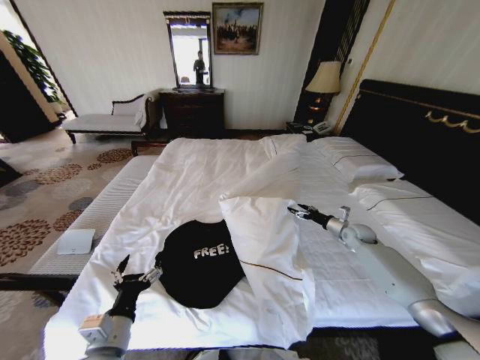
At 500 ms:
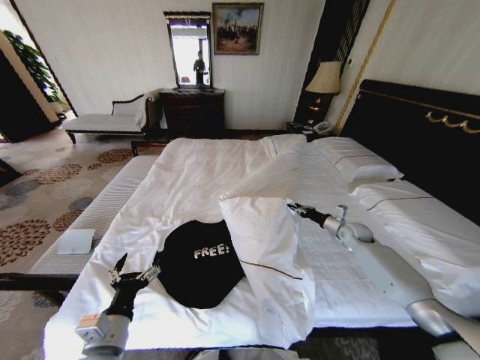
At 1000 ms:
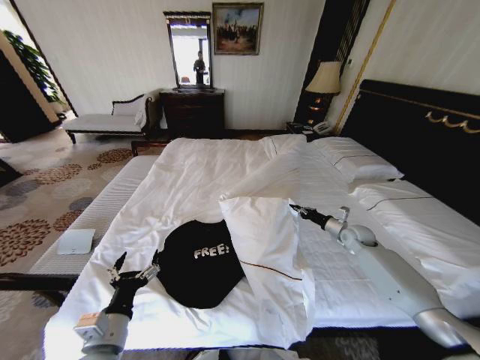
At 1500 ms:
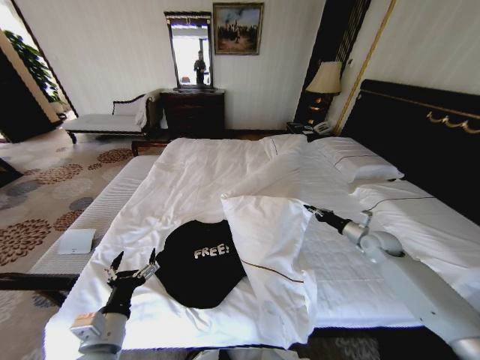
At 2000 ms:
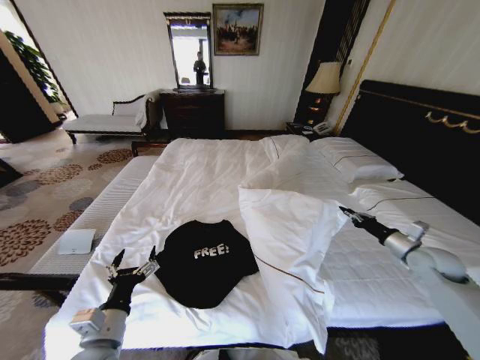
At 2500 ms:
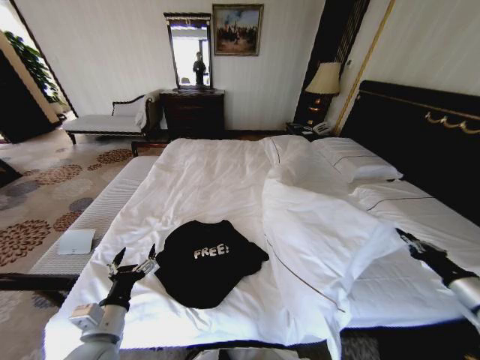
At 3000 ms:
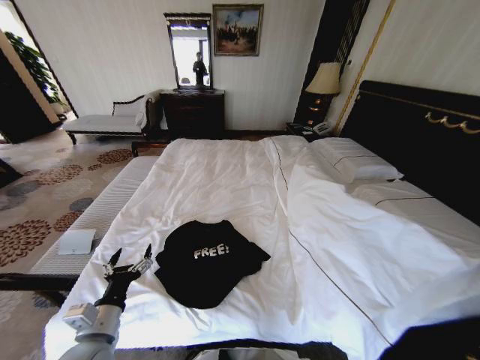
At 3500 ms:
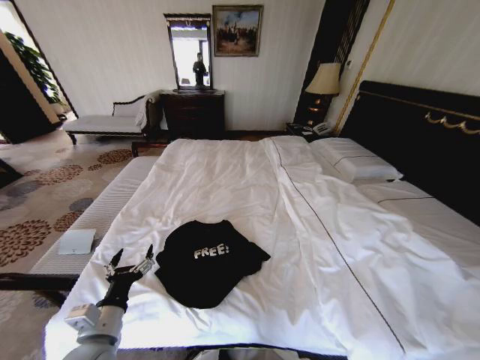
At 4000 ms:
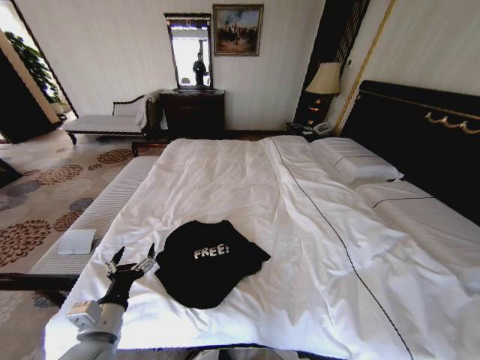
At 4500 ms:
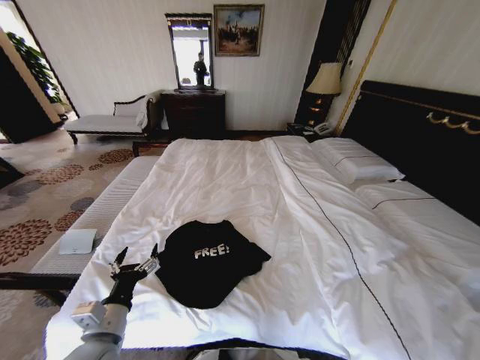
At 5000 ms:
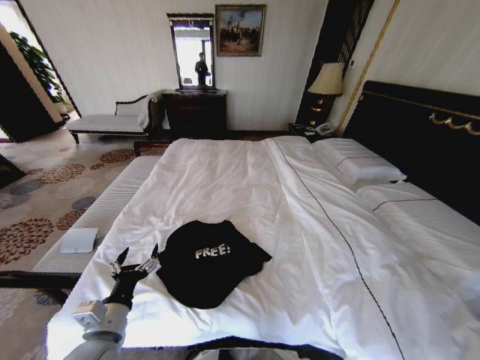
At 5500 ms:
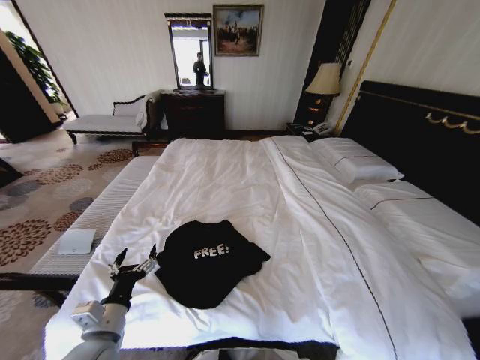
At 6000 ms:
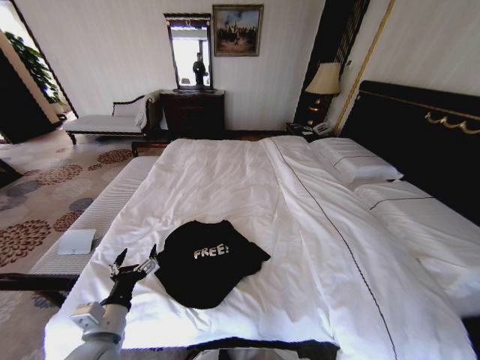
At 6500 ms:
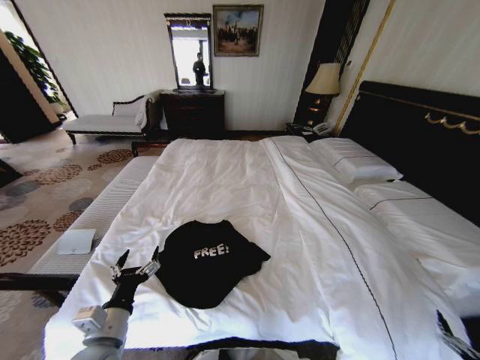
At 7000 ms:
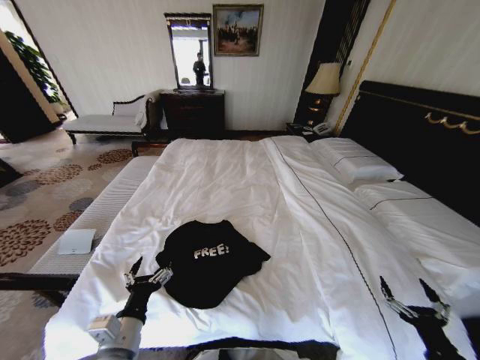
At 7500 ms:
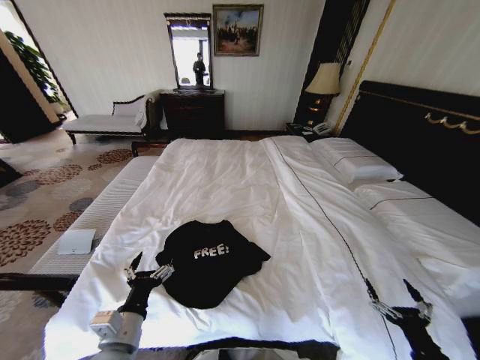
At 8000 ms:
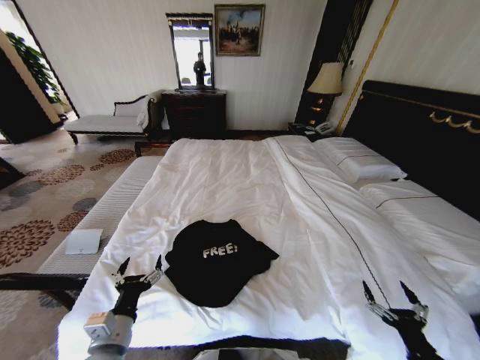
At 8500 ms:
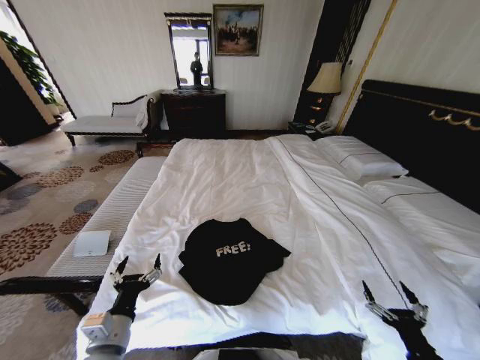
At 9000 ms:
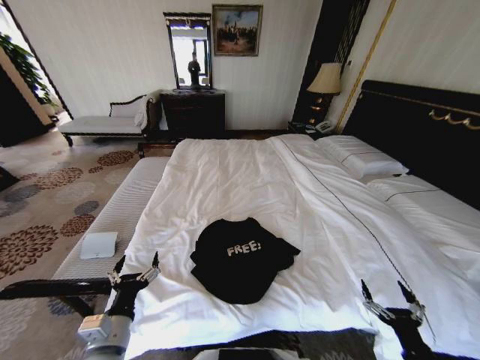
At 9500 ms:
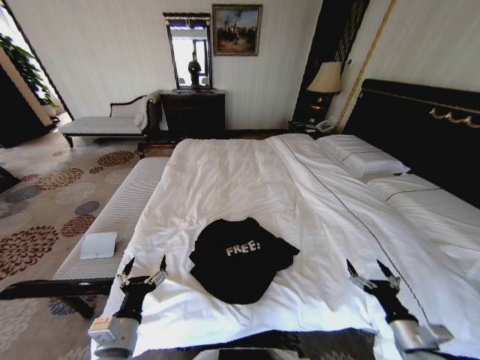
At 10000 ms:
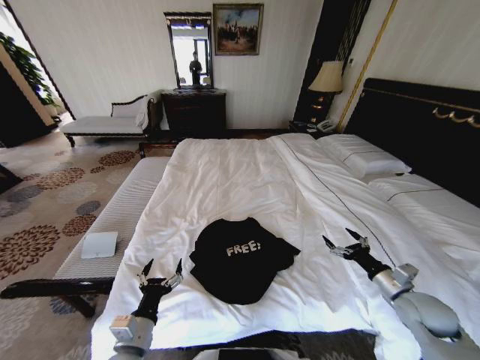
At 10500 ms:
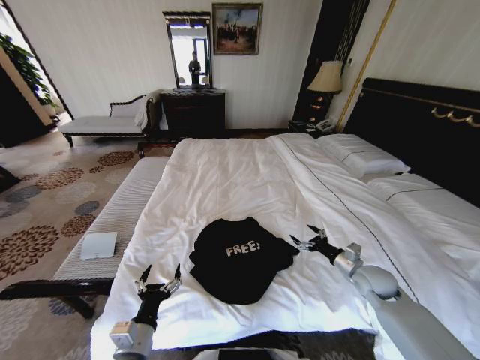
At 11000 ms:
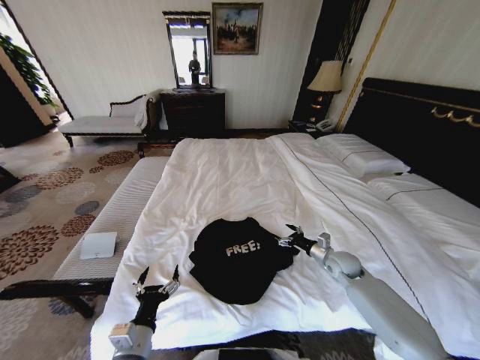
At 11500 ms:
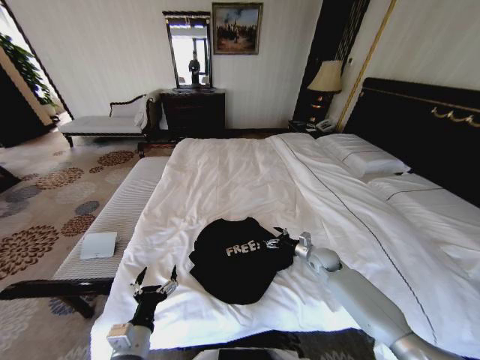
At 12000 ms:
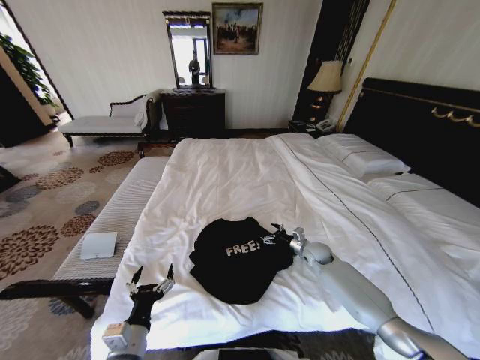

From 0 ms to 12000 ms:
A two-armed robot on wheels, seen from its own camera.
Task of the whole recording: Fold the clothes on the bed.
From 0 ms to 2000 ms: The right gripper is displaced backward, to the right and upward by roughly 20 cm, and closes up.
From 2000 ms to 4000 ms: The right gripper travels backward by approximately 40 cm.
From 4000 ms to 6000 ms: The right gripper is displaced to the left by roughly 5 cm, and opens up.
From 6000 ms to 8000 ms: The right gripper moves to the left and forward, about 25 cm.
From 8000 ms to 10000 ms: The right gripper shifts approximately 20 cm forward and upward.
From 10000 ms to 12000 ms: The right gripper is displaced forward, to the left and downward by approximately 25 cm.

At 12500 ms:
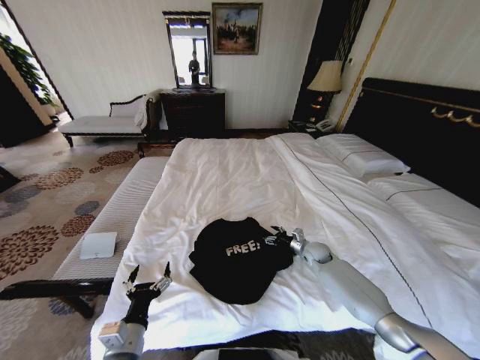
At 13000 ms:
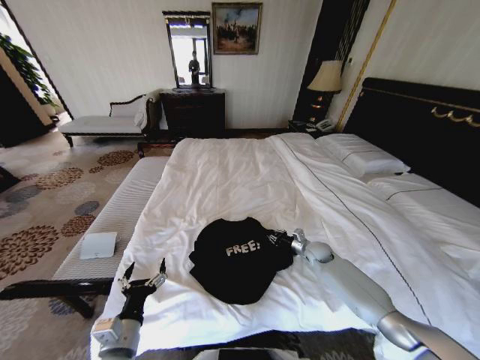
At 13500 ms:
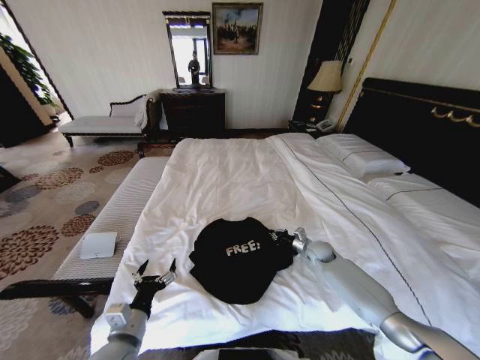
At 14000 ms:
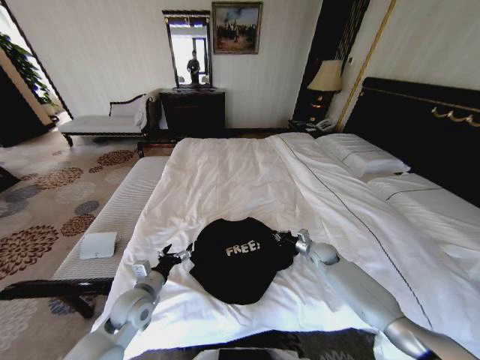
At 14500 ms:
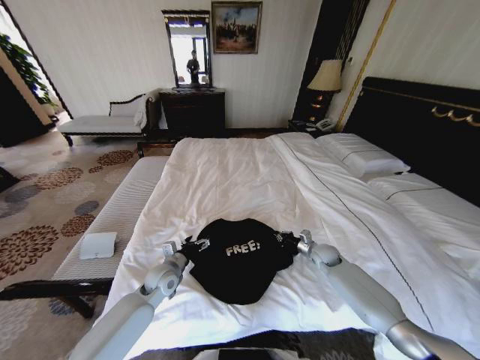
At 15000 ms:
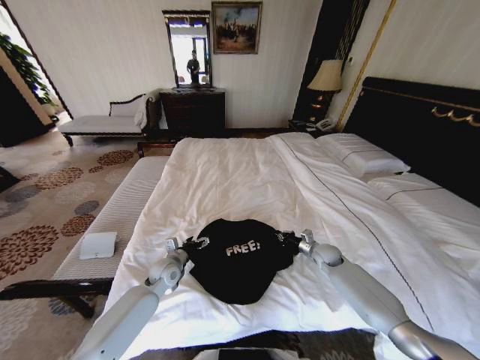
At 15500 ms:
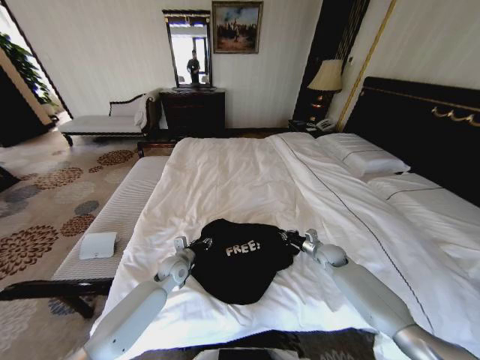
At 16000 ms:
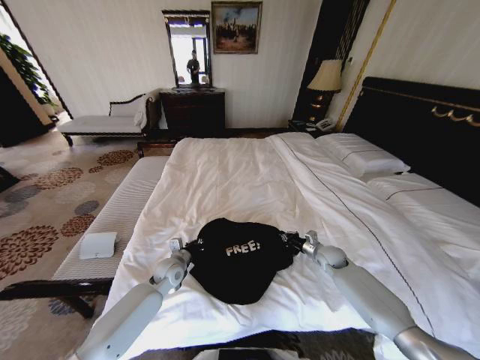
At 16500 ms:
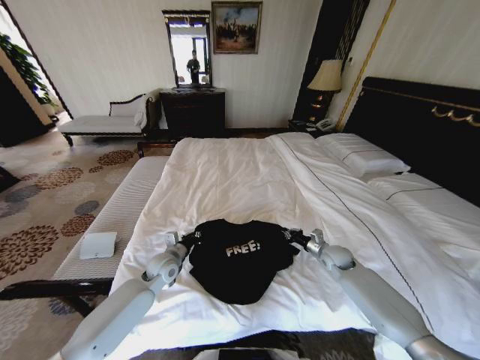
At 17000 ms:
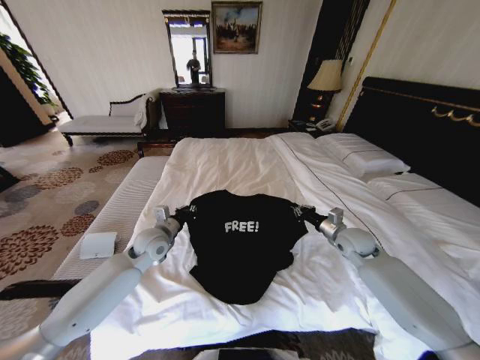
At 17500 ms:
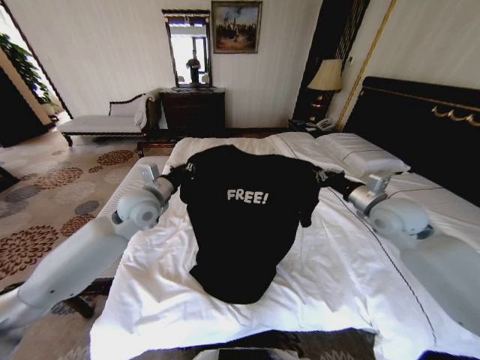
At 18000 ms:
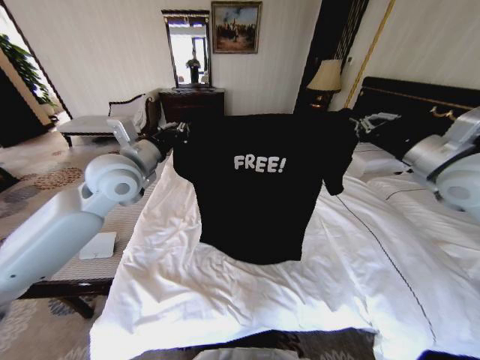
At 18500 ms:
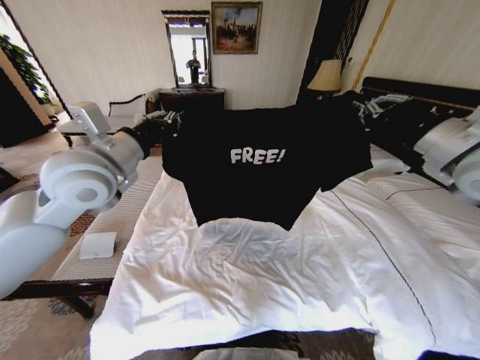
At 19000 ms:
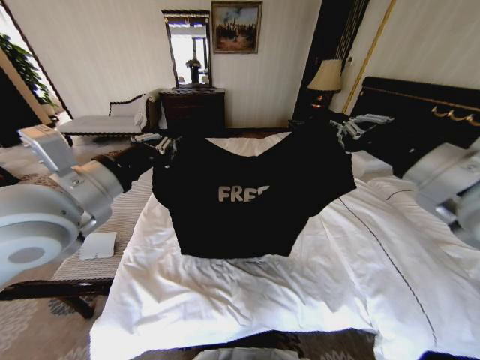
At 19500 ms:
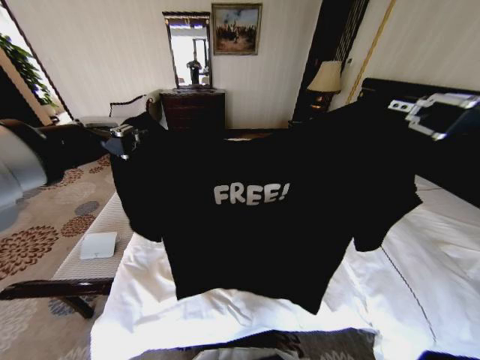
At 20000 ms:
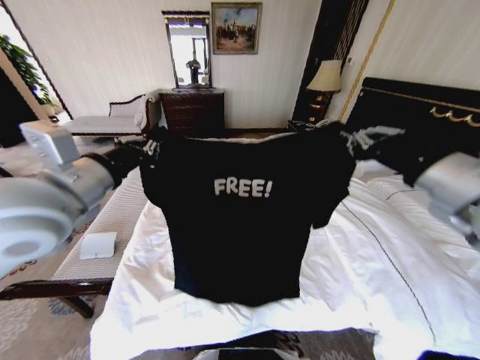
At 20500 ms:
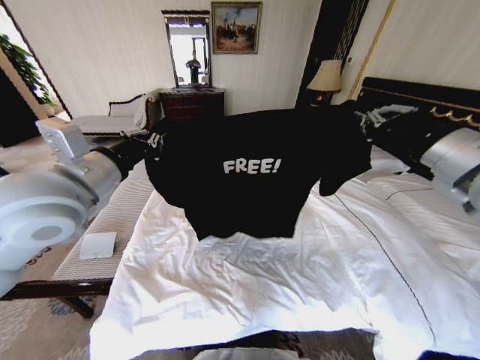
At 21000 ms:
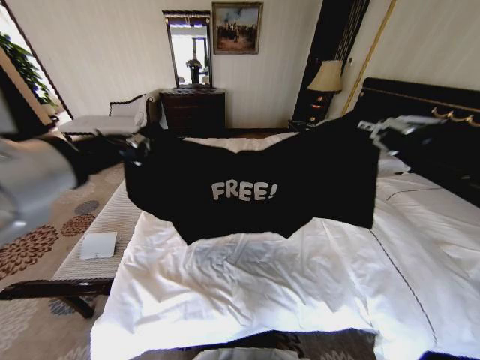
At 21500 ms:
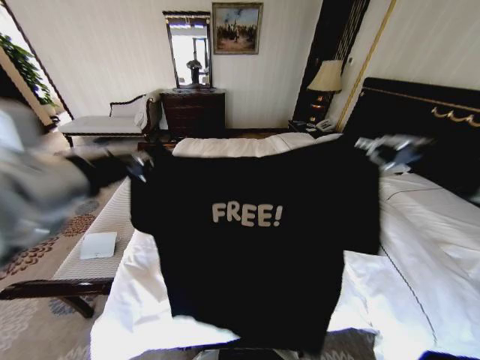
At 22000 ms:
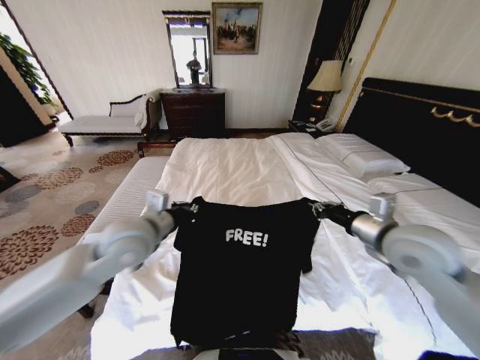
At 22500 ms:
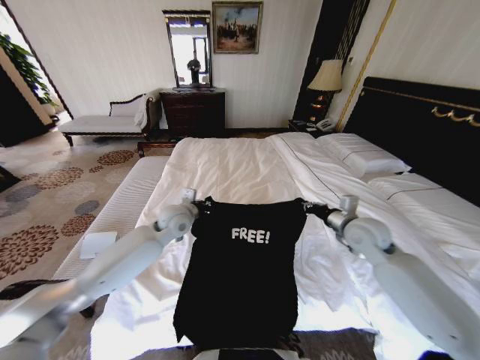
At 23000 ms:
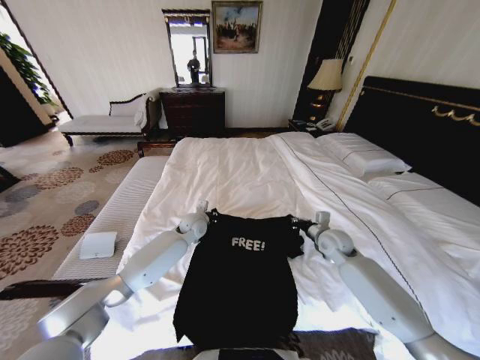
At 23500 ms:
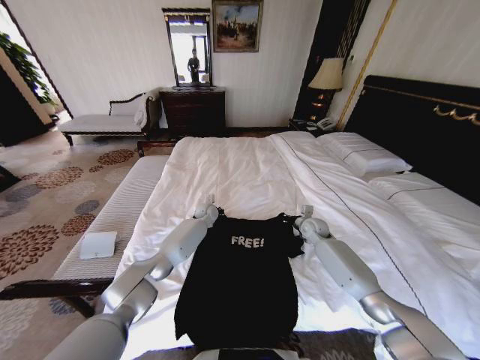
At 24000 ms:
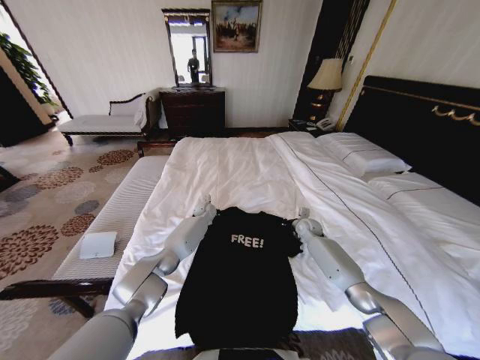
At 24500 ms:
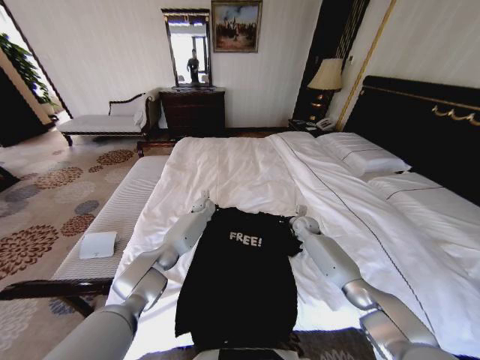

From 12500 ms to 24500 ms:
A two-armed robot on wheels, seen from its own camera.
Task of the whole recording: Fold the clothes on the bed.
From 12500 ms to 14500 ms: The left gripper travels forward by about 20 cm; the right gripper closes its fingers.
From 14500 ms to 16500 ms: The left gripper closes its fingers.
From 16500 ms to 18500 ms: Both grippers move upward, about 40 cm.
From 18500 ms to 20500 ms: The right gripper goes backward and returns, some 15 cm each way, while the left gripper goes some 5 cm backward.
From 20500 ms to 22500 ms: The left gripper heads downward, forward and to the right, covering some 30 cm. The right gripper travels downward and forward by approximately 25 cm.
From 22500 ms to 24500 ms: The right gripper is displaced downward and forward by approximately 25 cm. Meanwhile the left gripper moves forward and downward, roughly 25 cm.

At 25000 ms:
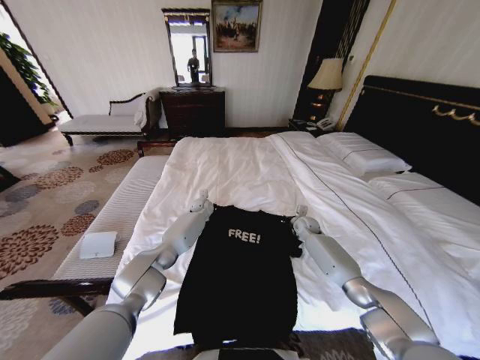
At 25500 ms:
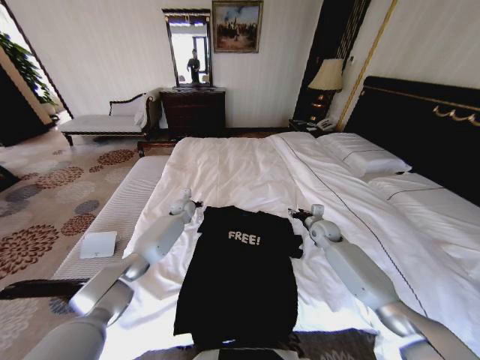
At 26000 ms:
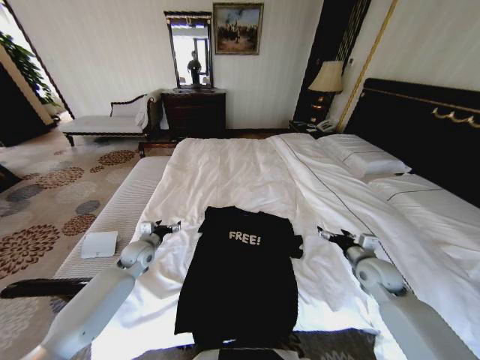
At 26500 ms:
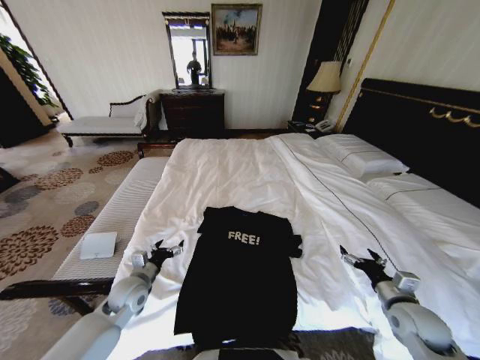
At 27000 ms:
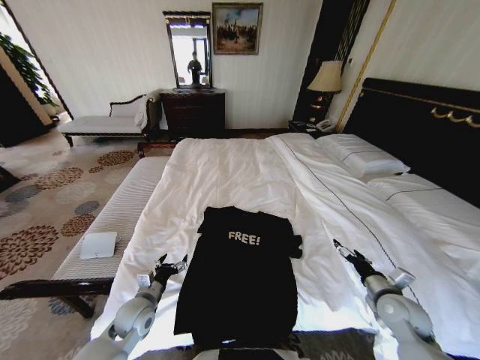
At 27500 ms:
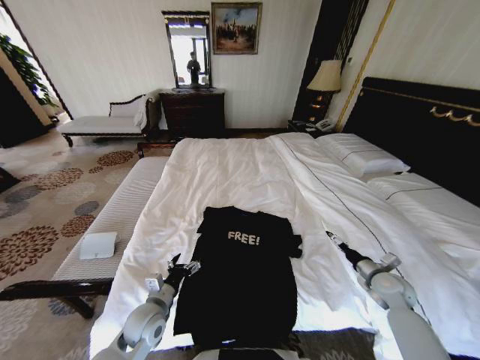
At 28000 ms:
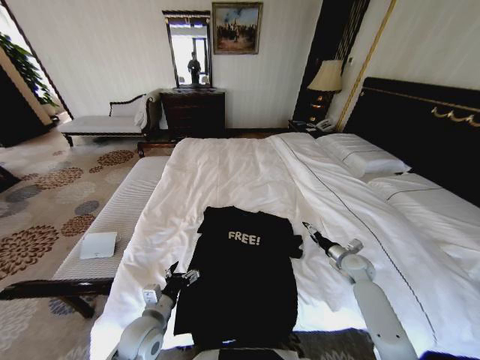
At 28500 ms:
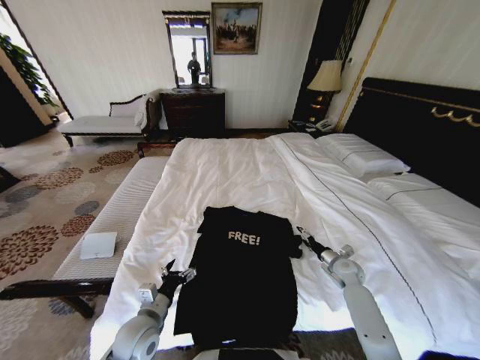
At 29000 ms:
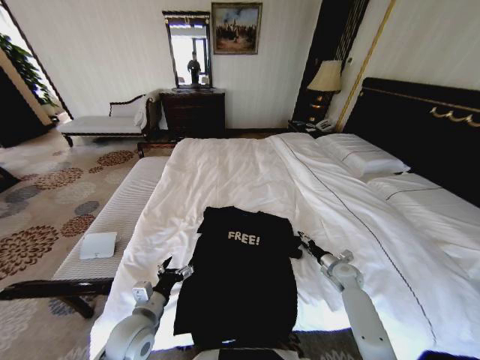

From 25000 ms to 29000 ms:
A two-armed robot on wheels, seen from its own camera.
Task of the whole recording: Fold the clothes on the bed.
From 25000 ms to 27000 ms: The two grippers go about 35 cm backward. The right gripper opens. The left gripper opens its fingers.
From 27000 ms to 29000 ms: The left gripper is displaced upward and backward by some 5 cm. Meanwhile the right gripper heads forward and downward, covering some 15 cm.
